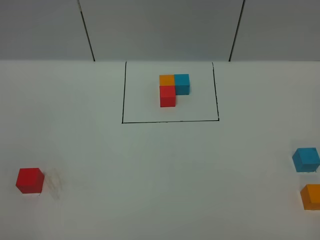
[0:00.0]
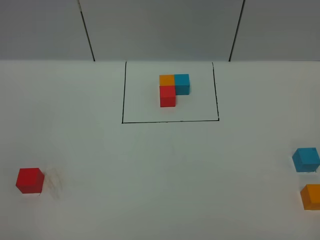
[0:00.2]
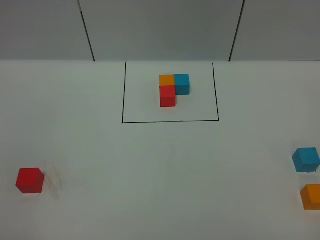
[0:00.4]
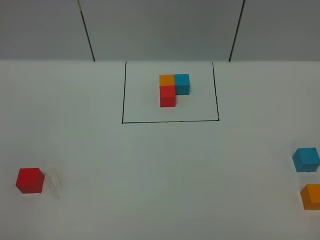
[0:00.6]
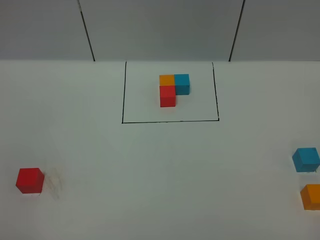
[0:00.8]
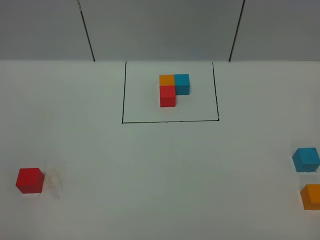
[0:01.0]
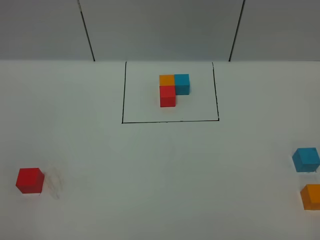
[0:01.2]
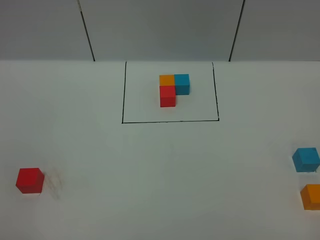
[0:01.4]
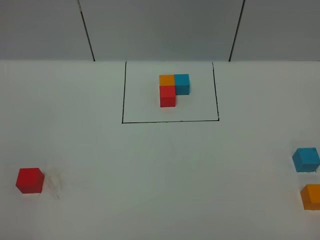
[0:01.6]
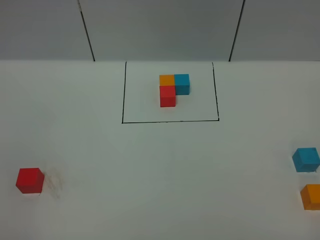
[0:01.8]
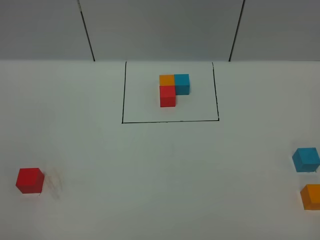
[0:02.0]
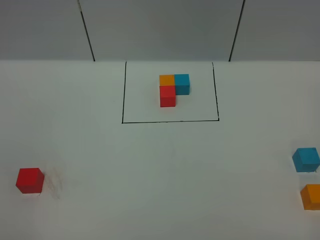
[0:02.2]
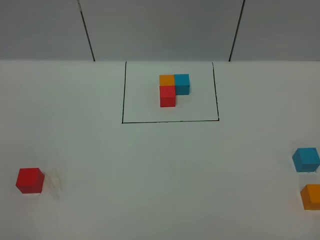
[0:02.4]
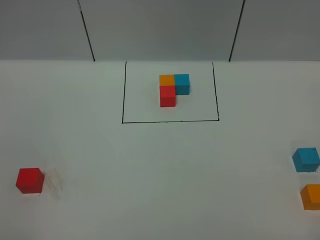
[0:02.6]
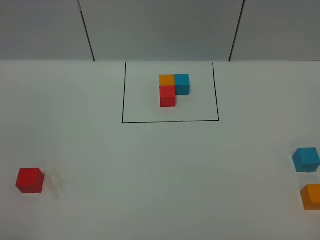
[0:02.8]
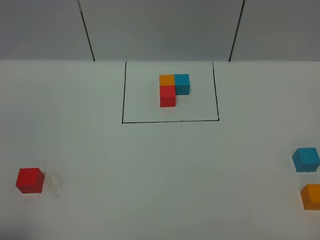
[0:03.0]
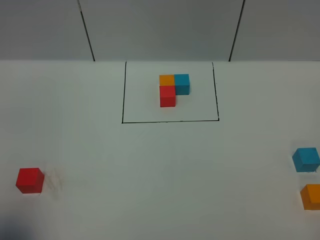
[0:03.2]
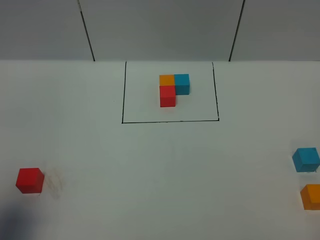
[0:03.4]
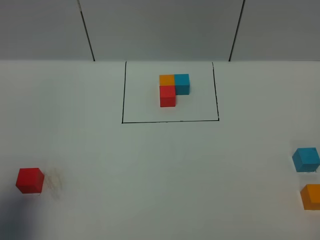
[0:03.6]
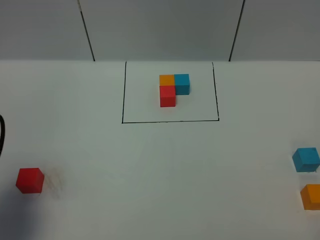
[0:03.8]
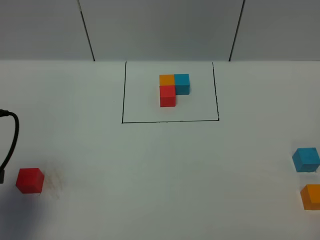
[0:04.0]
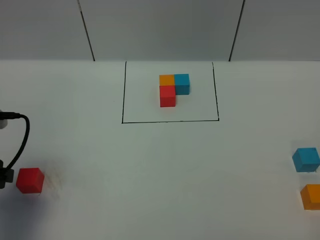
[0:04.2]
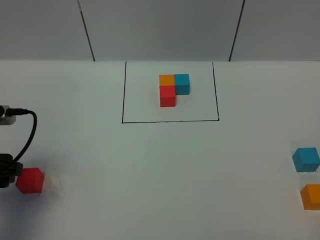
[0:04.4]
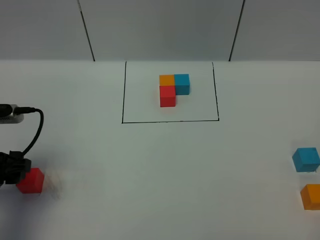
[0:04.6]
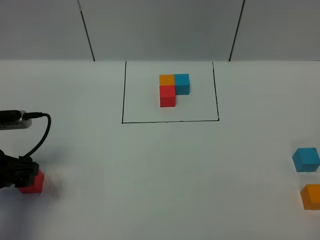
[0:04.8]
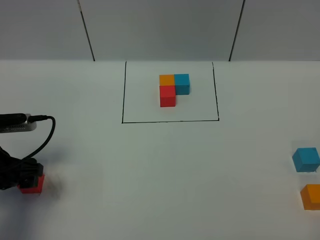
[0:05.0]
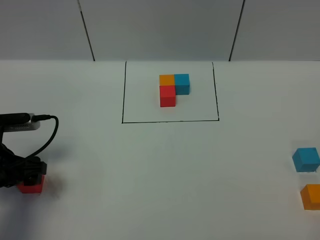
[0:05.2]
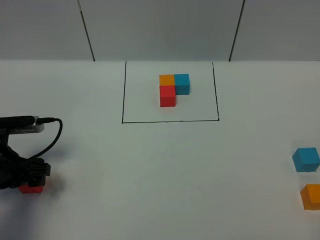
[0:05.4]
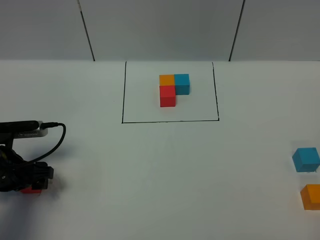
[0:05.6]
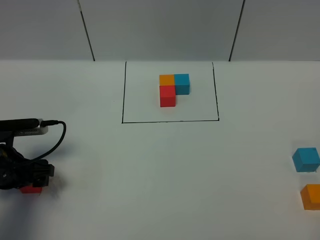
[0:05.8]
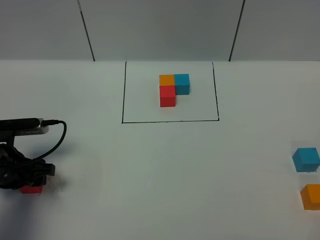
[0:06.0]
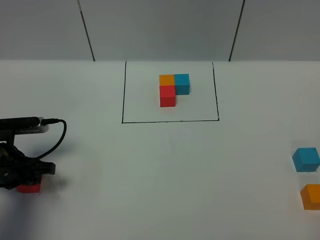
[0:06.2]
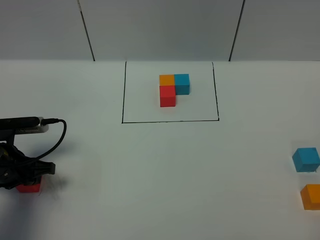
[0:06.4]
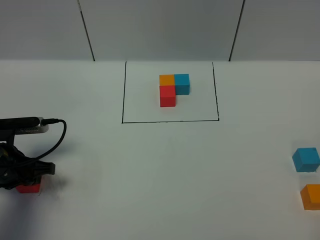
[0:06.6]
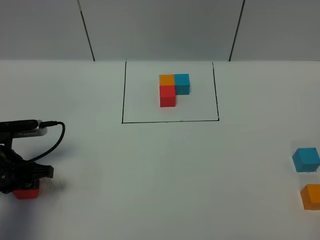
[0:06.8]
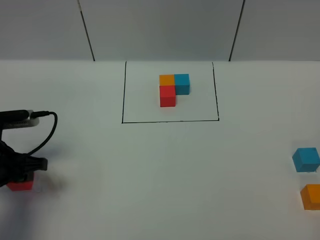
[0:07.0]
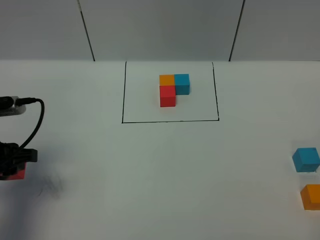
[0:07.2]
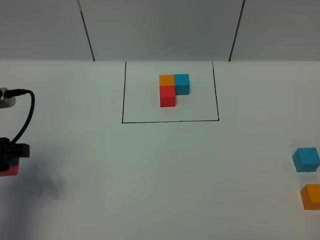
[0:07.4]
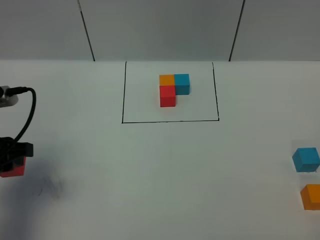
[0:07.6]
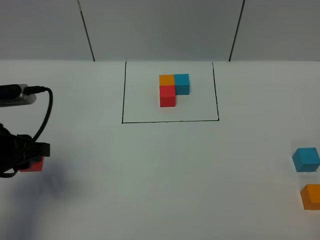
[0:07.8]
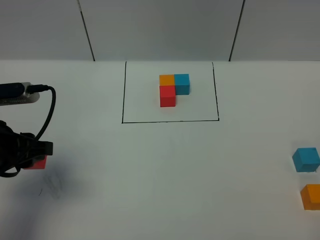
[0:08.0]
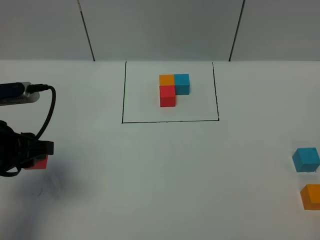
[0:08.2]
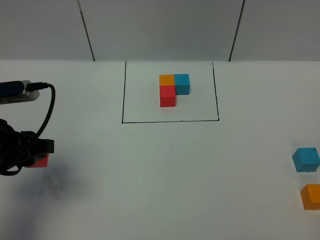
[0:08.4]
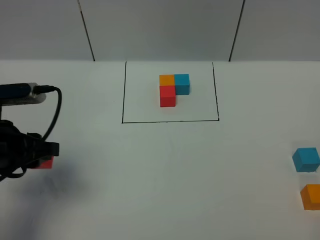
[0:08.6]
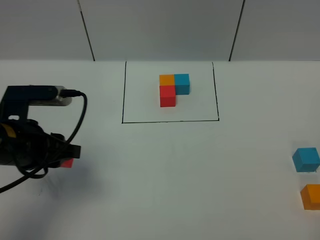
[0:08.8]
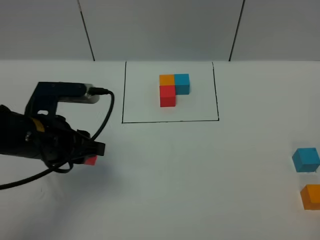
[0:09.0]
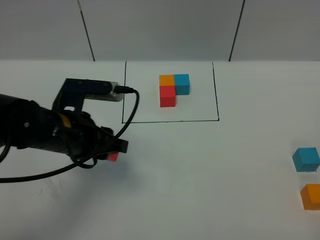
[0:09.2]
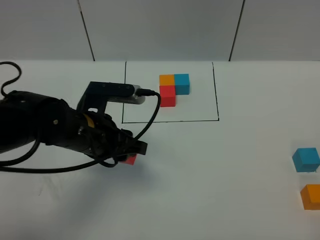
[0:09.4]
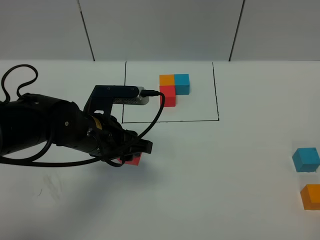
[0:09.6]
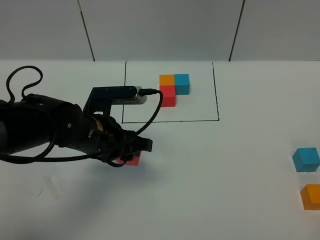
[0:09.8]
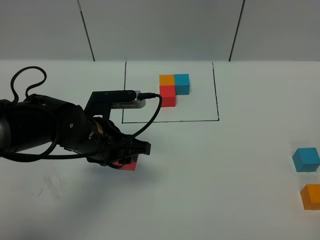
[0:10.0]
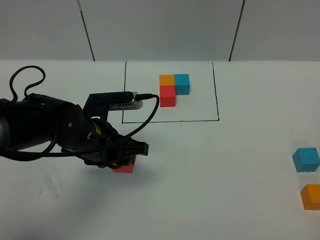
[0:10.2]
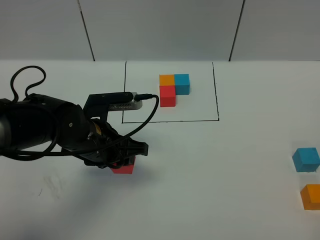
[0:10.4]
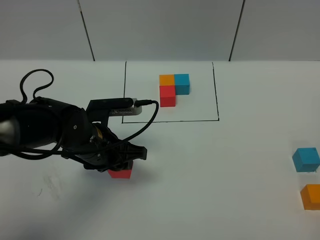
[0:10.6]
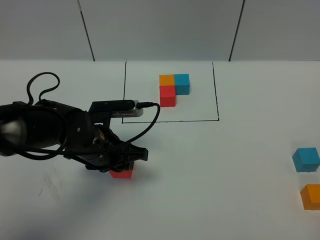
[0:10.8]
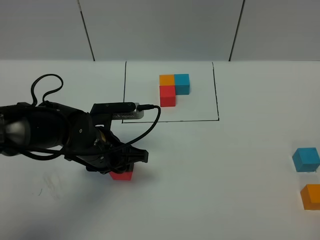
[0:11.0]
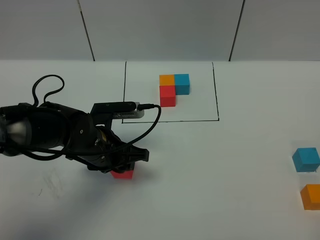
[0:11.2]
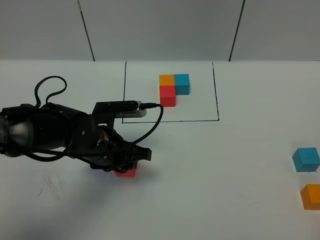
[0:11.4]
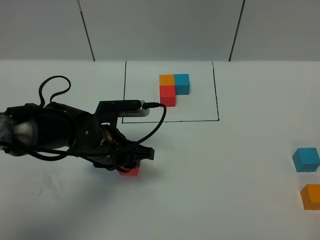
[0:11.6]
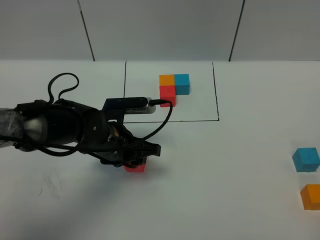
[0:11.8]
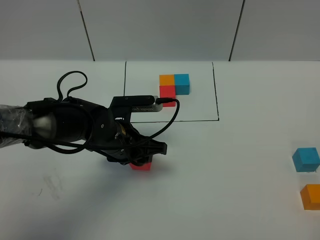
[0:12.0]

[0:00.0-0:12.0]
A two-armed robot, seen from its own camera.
Task of the whole recording: According to the building block template in front, assemble the scattered blocks together.
0:00.0 to 0:01.6: The two grippers keep their place.
0:03.0 to 0:04.4: The left gripper goes about 20 cm forward and downward.
0:04.4 to 0:06.0: The left gripper shifts about 10 cm downward.
0:06.0 to 0:07.6: The left gripper goes approximately 10 cm upward.
0:07.6 to 0:09.0: The left gripper goes about 10 cm to the right.
0:09.0 to 0:10.4: The left gripper shifts approximately 10 cm to the right and downward.
0:10.4 to 0:12.0: The left gripper moves approximately 5 cm.

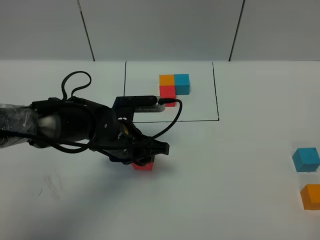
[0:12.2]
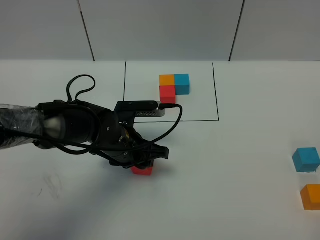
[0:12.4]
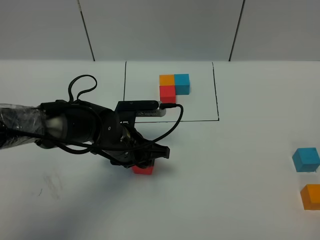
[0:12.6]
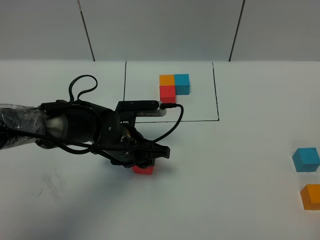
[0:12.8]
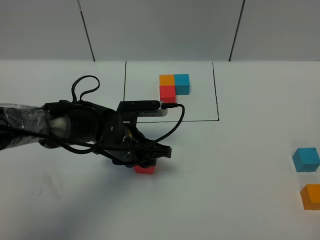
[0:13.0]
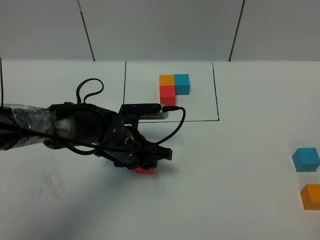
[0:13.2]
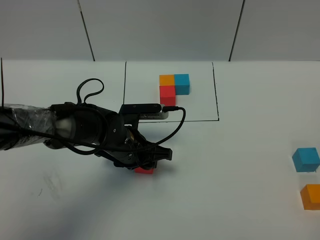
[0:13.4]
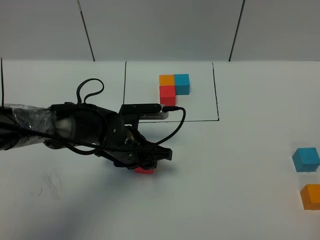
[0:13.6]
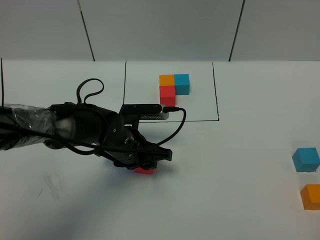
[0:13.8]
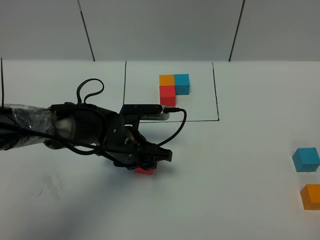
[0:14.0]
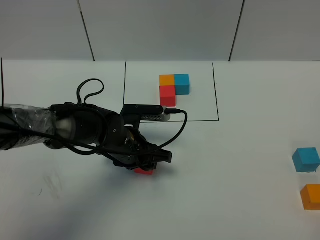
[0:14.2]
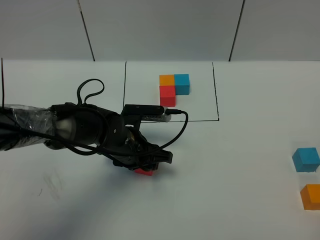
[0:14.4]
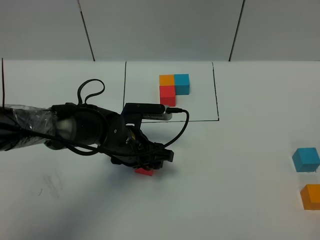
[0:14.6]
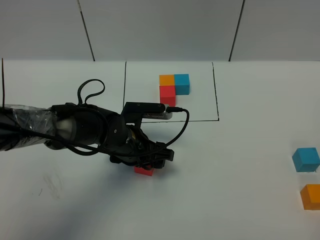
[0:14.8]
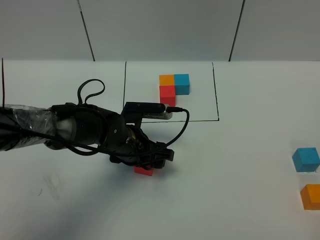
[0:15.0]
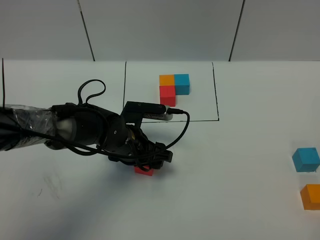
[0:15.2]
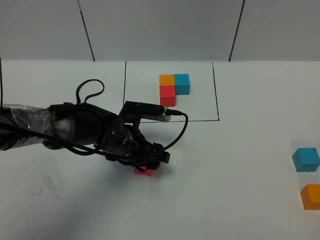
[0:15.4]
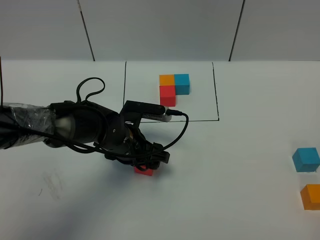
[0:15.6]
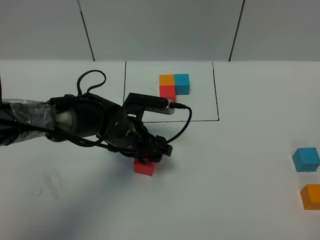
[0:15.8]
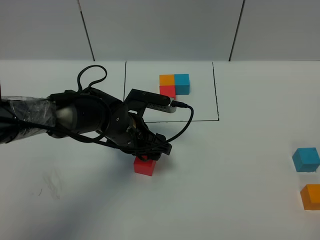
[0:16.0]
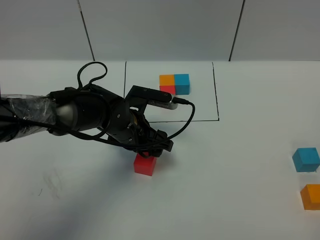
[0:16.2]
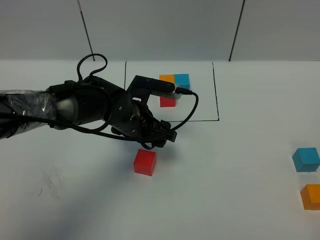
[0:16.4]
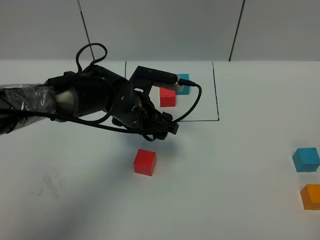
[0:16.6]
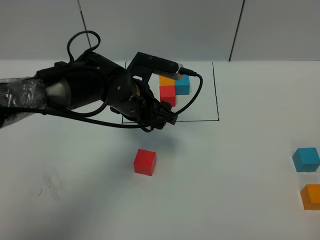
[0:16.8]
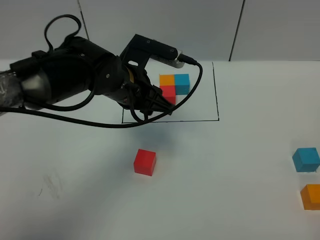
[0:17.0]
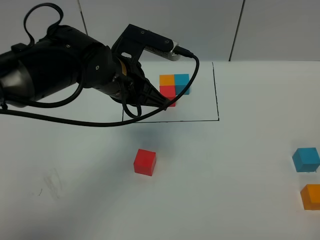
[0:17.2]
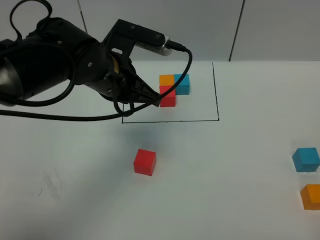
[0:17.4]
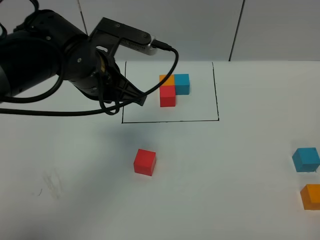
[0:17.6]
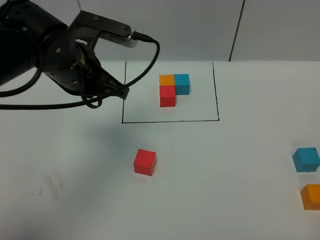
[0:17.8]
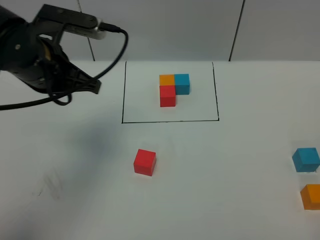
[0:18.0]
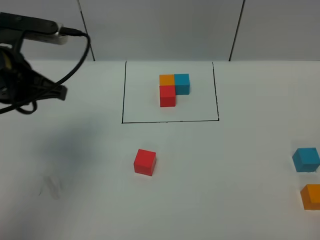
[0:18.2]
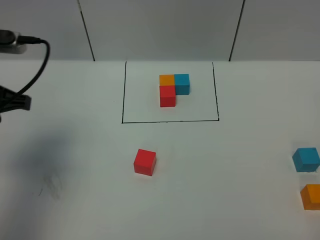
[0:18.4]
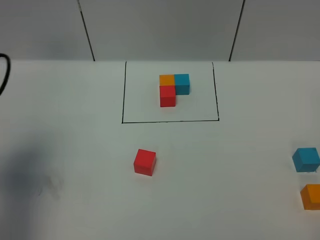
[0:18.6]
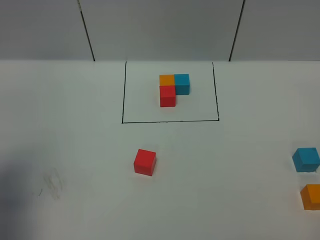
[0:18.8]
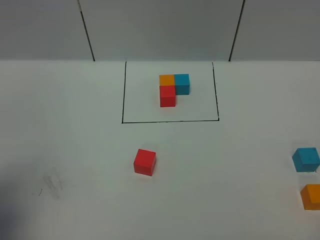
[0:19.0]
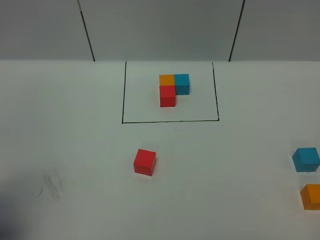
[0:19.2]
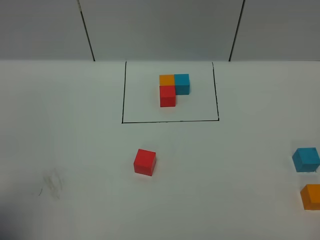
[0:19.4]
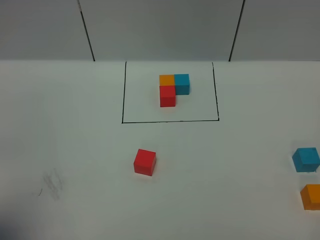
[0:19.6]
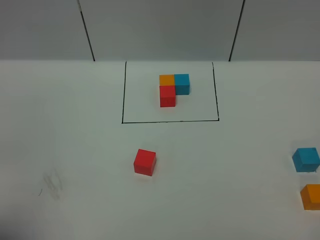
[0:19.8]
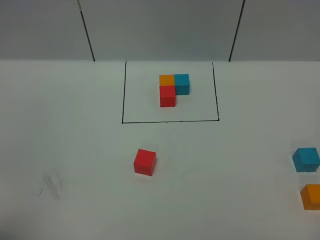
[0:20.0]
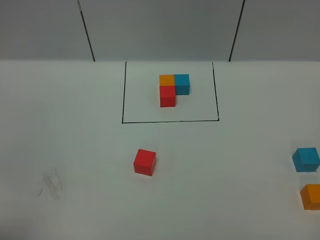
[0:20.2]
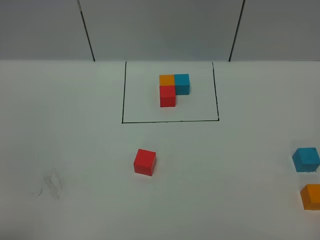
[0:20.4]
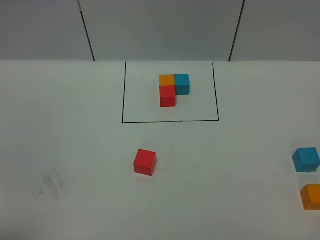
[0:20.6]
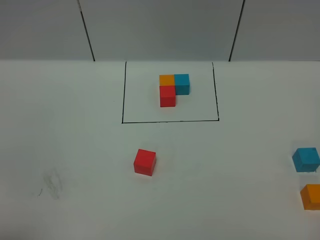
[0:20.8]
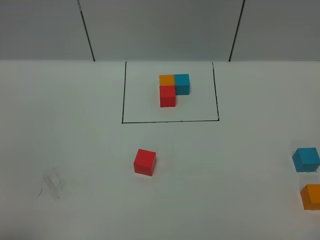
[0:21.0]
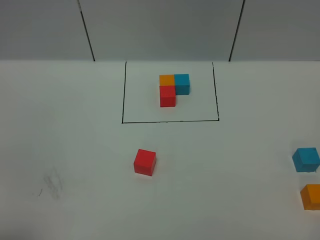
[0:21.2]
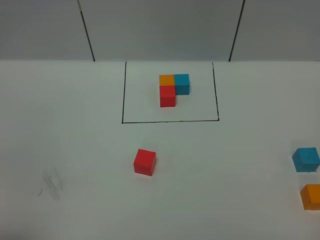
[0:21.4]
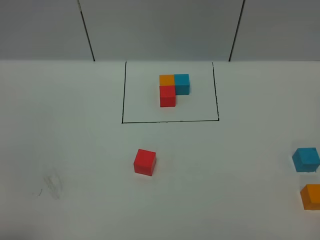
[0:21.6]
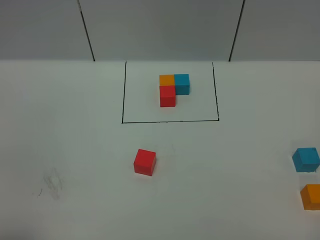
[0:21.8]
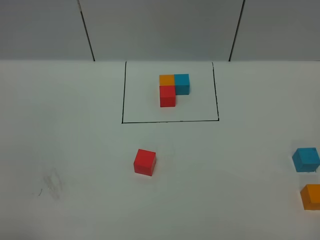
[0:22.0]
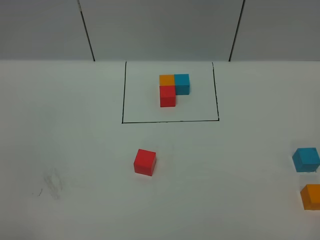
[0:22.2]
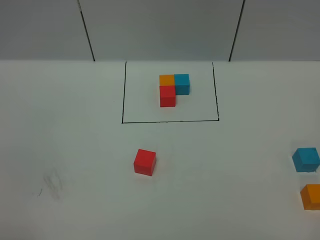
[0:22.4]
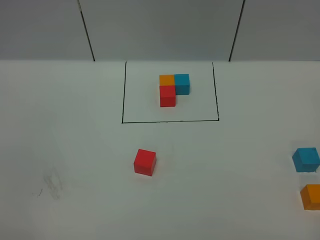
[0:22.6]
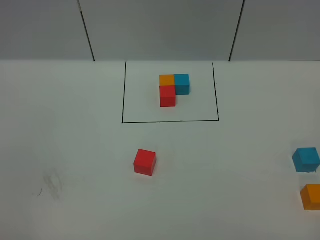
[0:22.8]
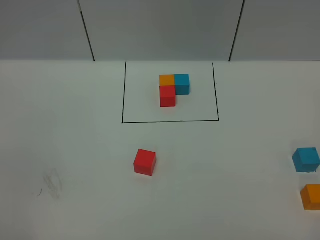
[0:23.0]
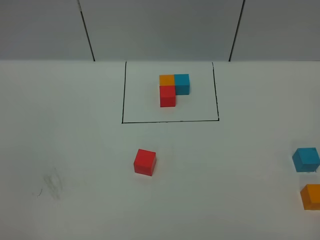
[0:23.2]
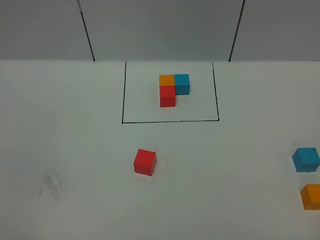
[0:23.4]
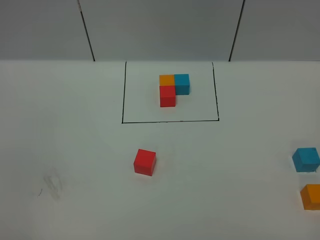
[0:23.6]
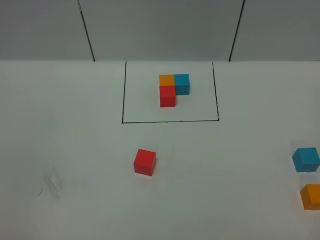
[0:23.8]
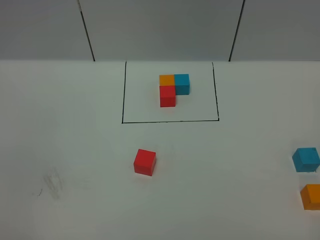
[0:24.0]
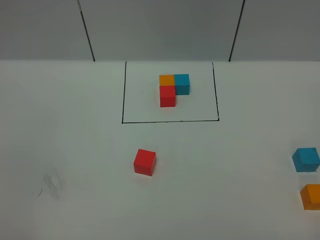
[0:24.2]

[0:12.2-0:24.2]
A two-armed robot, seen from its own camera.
Task of the whole recording: According to the building block template in front, assemble the scattered blocks together.
Step, 0:12.2 to 0:16.4: Put the red cube in the center of the table.
0:12.2 to 0:15.2: The grippers make only small movements.
0:15.2 to 0:16.6: The left gripper shifts approximately 5 cm upward.
0:16.6 to 0:18.2: The left gripper moves to the left and upward, roughly 20 cm, and closes.
0:18.2 to 0:19.8: The left gripper heads backward and to the left, covering about 25 cm.
0:22.6 to 0:24.2: Both grippers stay put.
